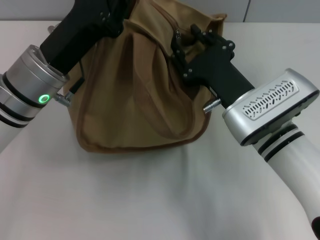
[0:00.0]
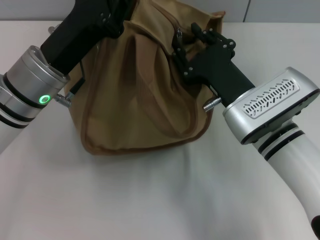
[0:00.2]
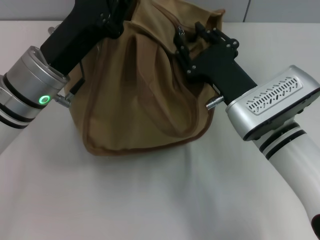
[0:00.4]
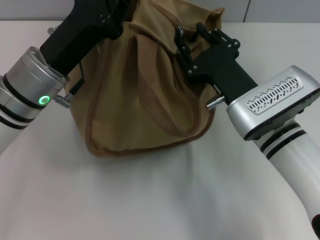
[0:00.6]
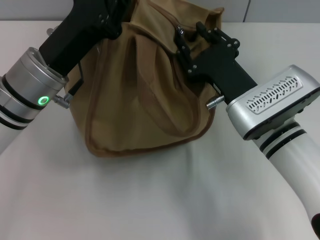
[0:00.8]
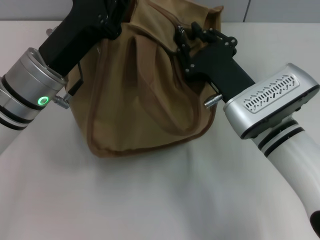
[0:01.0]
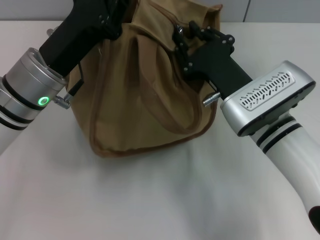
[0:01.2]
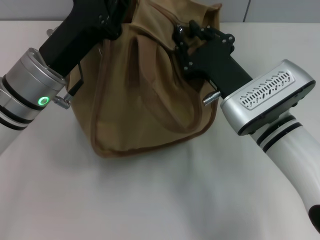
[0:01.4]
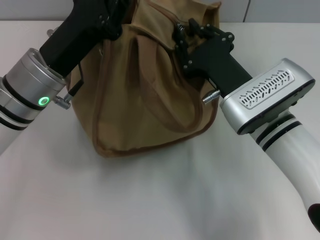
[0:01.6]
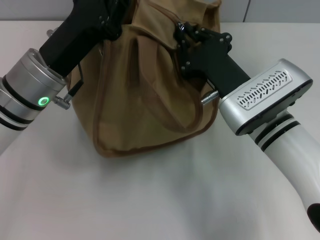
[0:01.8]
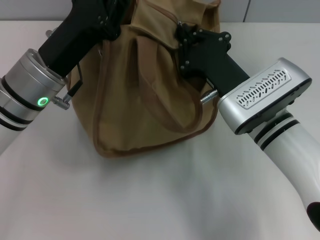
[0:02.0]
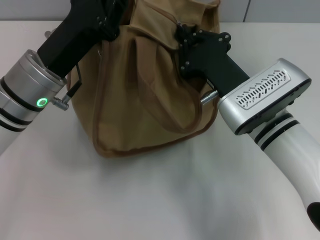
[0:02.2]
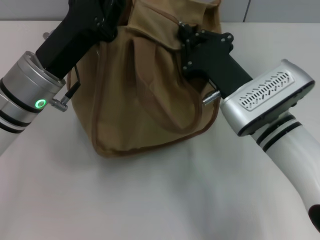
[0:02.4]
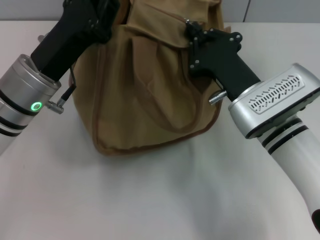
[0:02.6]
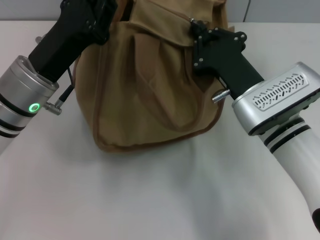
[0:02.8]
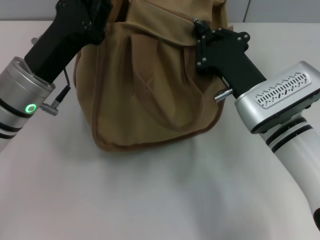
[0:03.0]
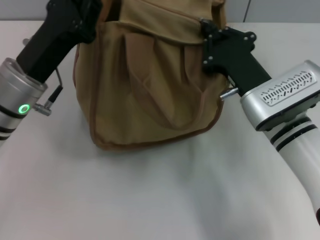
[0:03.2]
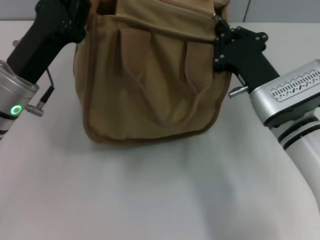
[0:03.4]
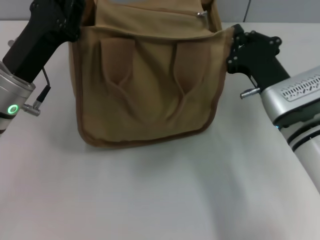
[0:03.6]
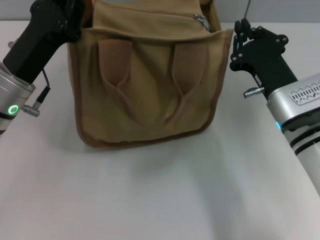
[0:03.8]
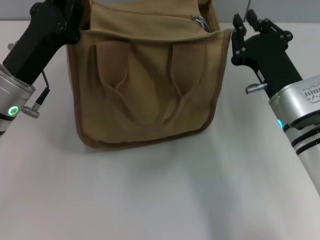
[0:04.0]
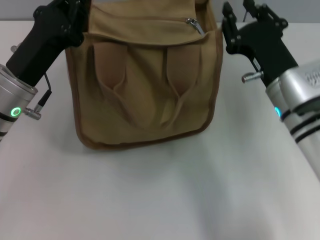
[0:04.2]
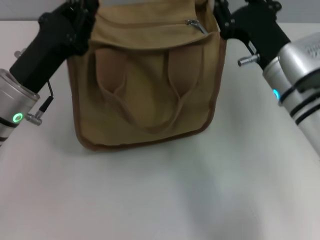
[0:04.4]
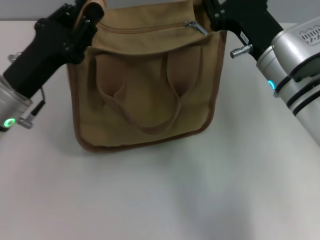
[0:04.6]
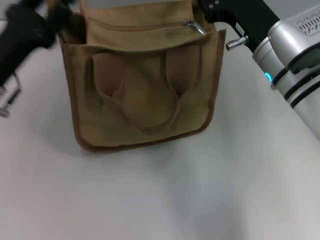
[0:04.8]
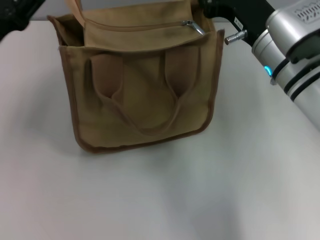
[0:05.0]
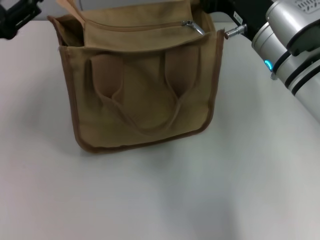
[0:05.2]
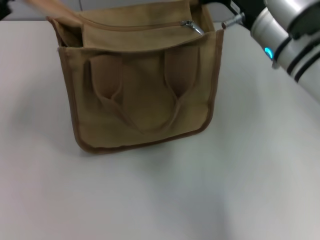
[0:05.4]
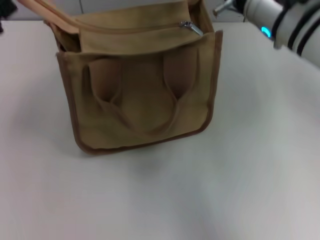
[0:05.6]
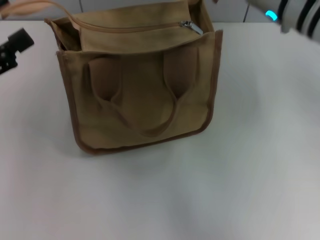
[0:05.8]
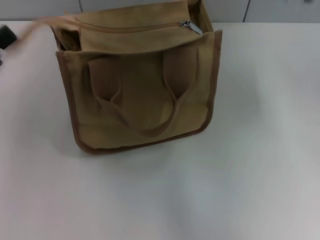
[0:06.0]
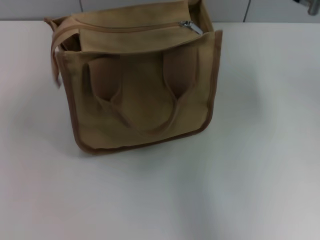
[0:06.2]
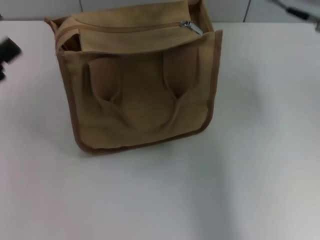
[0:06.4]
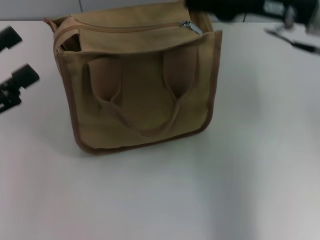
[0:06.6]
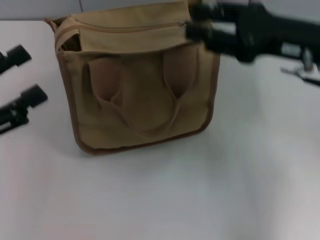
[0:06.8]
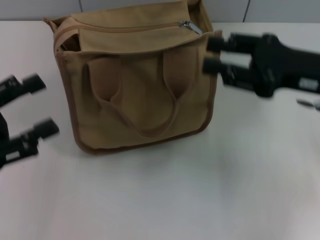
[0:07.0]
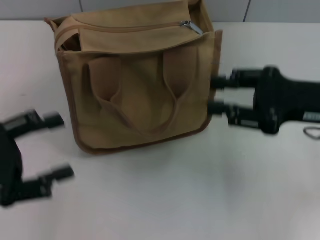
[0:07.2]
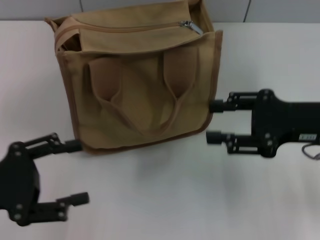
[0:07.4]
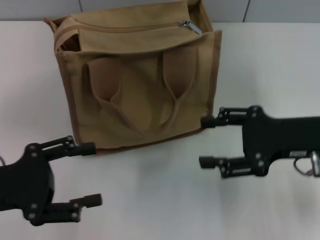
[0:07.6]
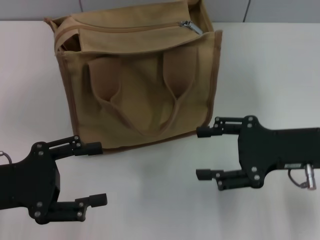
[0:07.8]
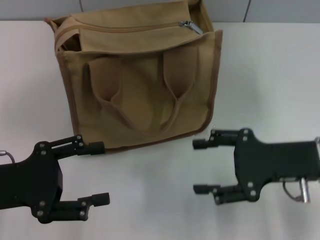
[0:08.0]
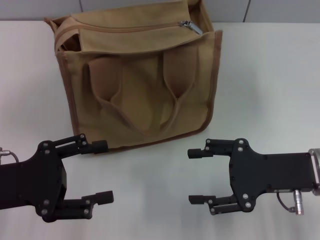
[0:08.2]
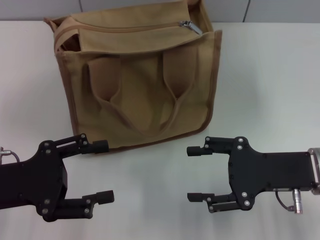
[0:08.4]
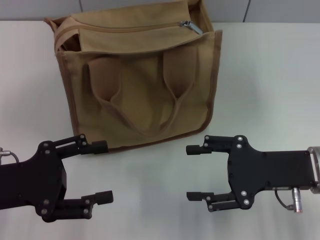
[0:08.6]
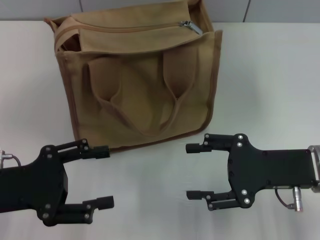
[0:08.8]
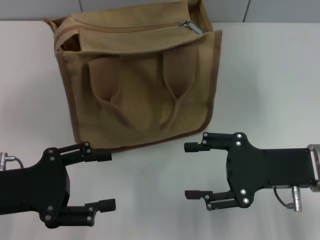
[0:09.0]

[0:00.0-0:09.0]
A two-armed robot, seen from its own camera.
Step, 0:00.0 to 0:03.4: Pull up the zipper with your right hand.
Step, 0:03.6 to 0:06.2: Grab the zipper with your left hand.
0:00.0 to 0:01.6: Both grippers stay put.
0:01.6 to 0:03.0: The right gripper closes up.
0:03.0 to 0:04.4: The right gripper opens.
0:04.4 to 0:06.0: The right gripper moves upward, some 15 cm. The left gripper goes approximately 15 cm to the left, backward and upward, and opens up.
0:06.0 to 0:07.6: The left gripper heads downward, covering about 5 cm. The right gripper is displaced downward, to the right and backward by about 20 cm.
0:07.6 to 0:09.0: The grippers stay close to where they were, moving slightly.
